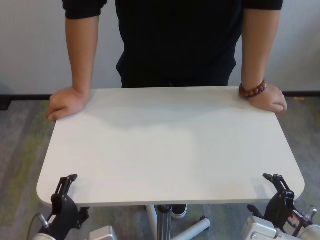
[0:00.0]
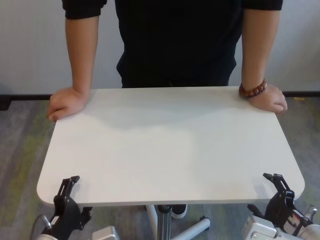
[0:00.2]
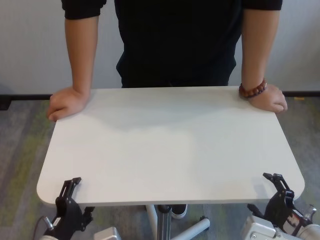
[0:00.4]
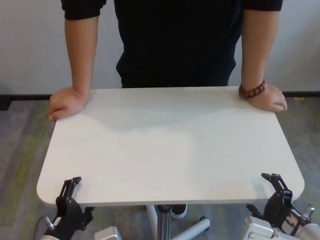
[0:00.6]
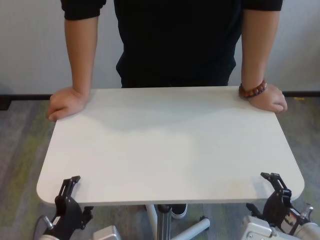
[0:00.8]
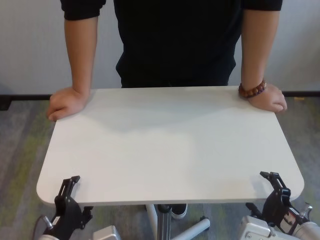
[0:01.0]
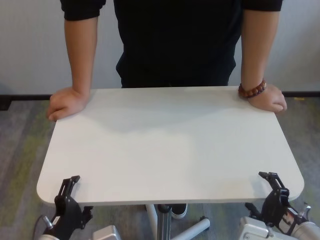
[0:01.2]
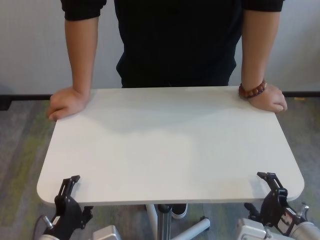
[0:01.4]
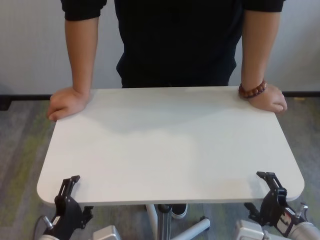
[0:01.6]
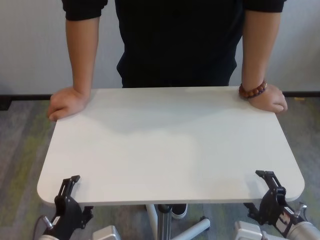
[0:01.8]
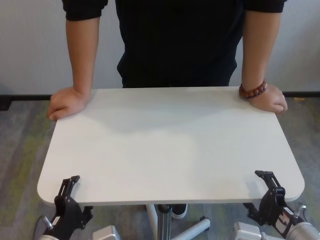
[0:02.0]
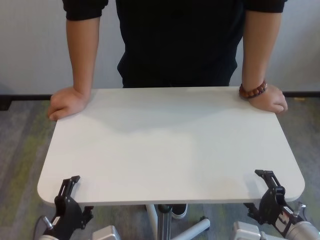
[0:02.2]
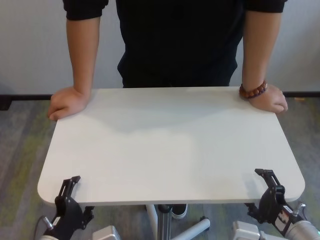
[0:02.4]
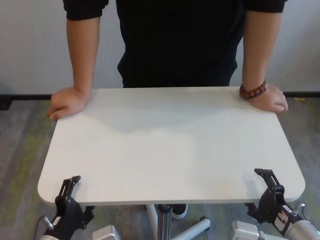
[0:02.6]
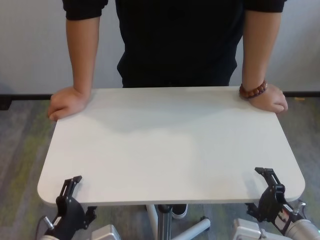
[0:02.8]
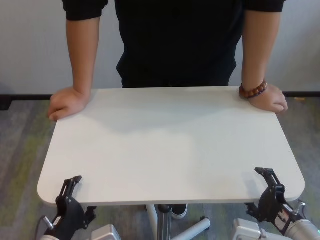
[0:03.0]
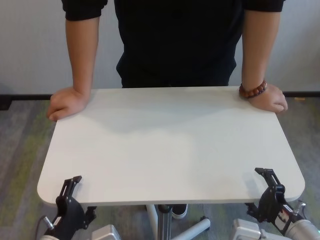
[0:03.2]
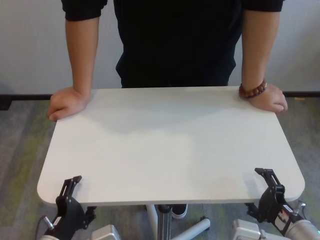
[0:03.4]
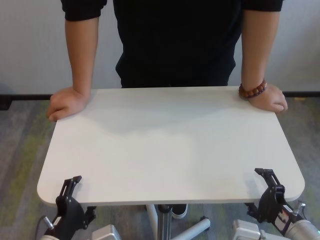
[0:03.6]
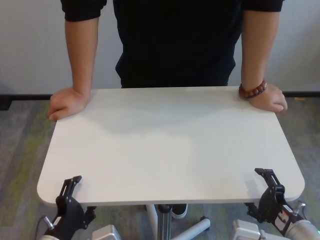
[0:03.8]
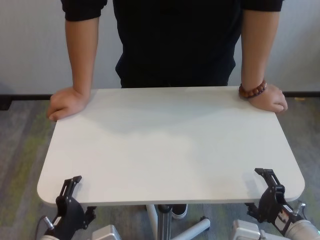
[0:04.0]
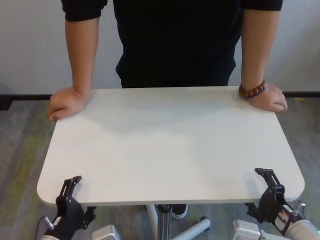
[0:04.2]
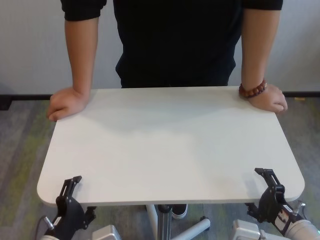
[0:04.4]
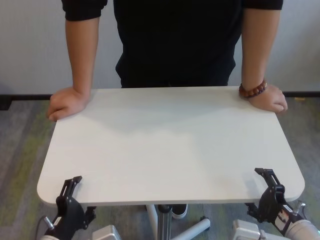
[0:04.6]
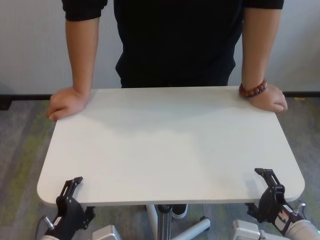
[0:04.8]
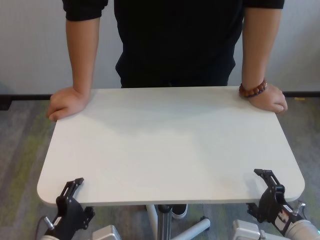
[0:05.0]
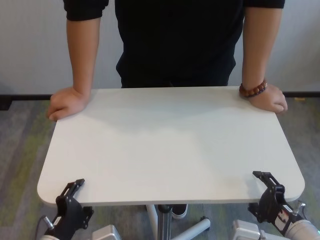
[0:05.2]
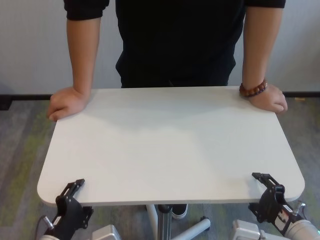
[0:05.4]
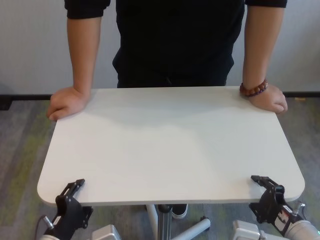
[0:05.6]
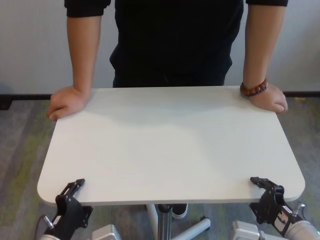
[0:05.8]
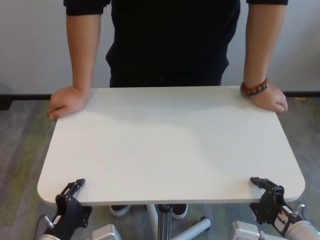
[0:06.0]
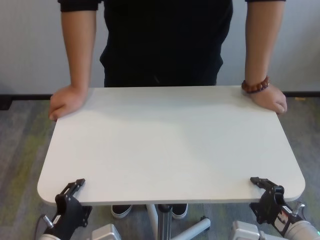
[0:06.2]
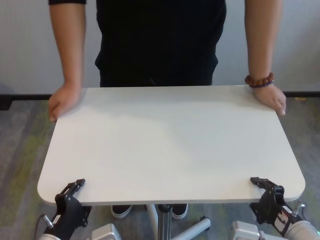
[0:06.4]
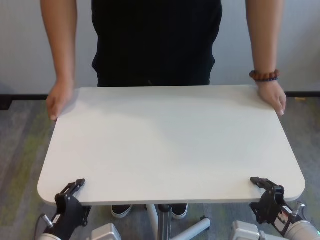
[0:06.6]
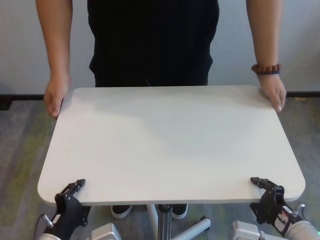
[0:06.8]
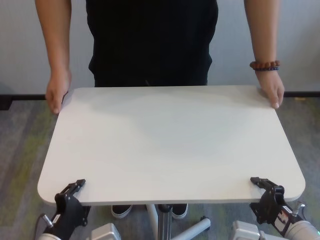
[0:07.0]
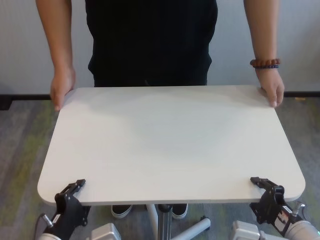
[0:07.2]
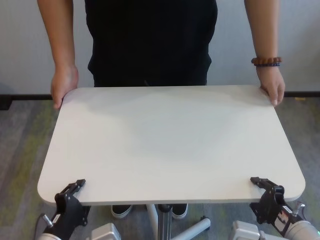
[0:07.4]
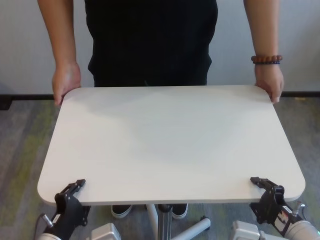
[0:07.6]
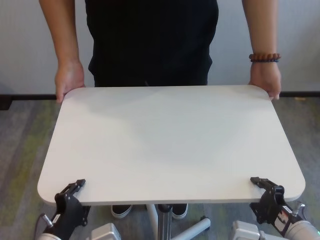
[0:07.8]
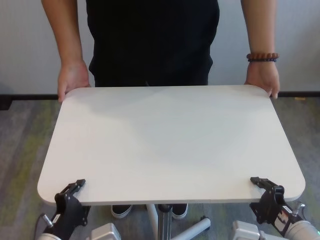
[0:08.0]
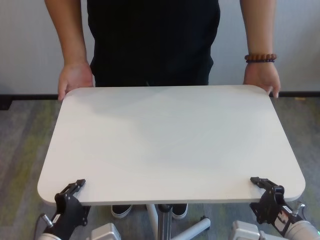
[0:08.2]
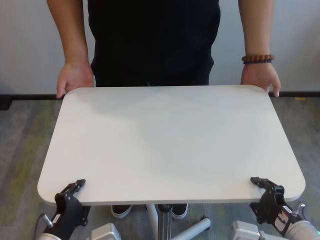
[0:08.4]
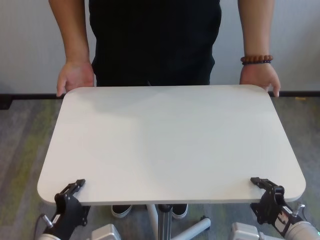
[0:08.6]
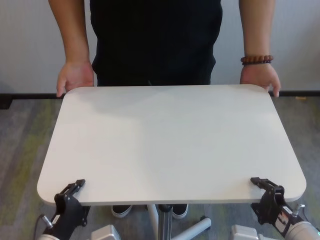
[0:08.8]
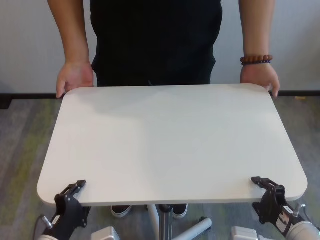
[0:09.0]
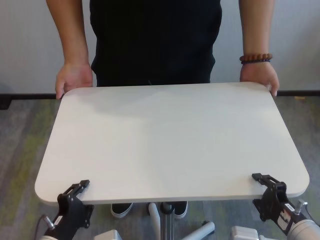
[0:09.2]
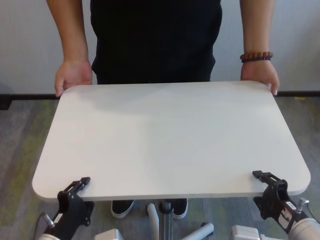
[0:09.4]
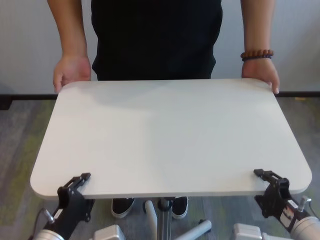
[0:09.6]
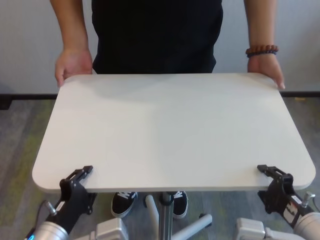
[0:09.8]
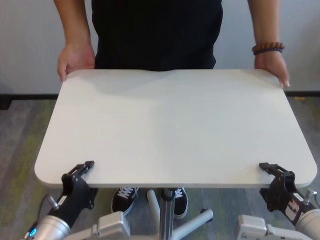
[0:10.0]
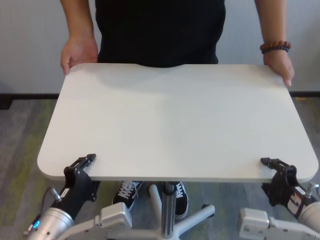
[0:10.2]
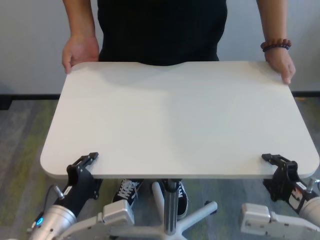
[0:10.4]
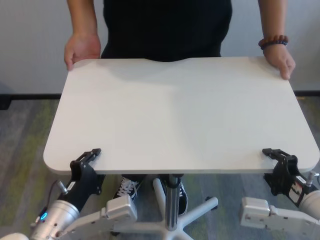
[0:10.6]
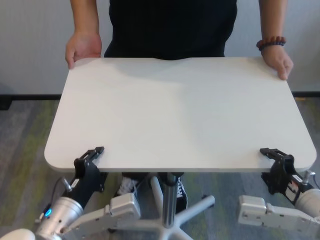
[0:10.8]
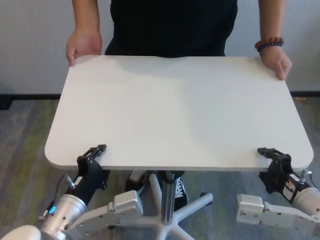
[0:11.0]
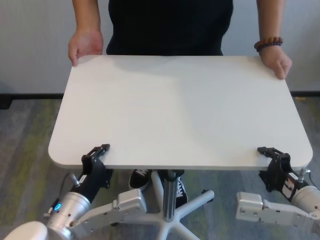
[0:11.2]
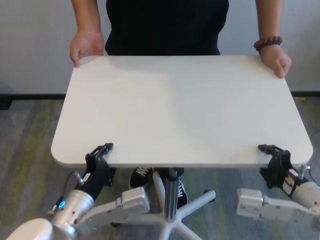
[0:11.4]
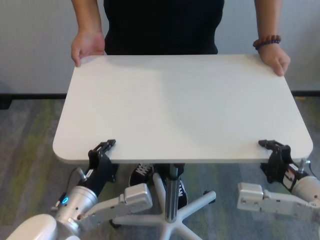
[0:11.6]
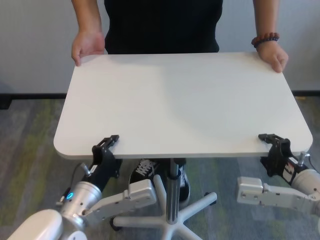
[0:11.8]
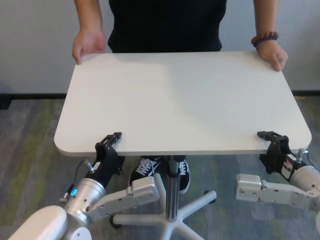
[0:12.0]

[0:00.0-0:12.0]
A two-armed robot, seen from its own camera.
Task of the whole recording: human machine collaborative table moving.
Step, 0:00.0 to 0:07.6: Grasp the table with both grippers.

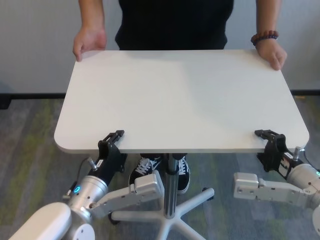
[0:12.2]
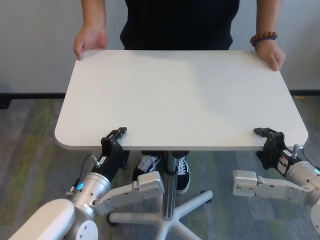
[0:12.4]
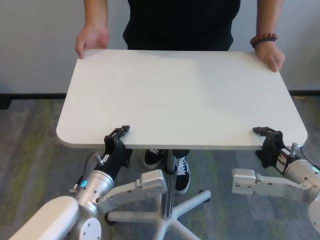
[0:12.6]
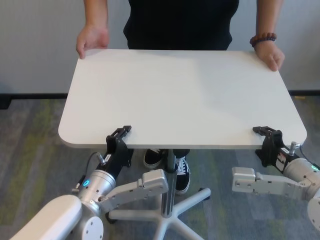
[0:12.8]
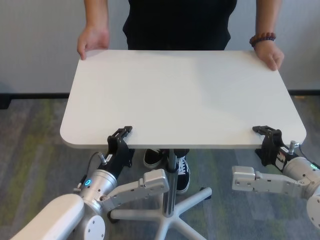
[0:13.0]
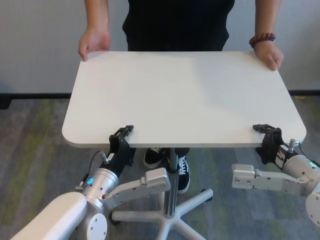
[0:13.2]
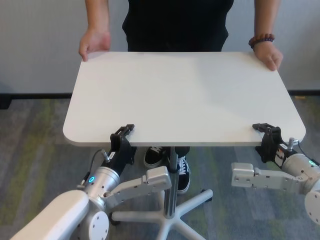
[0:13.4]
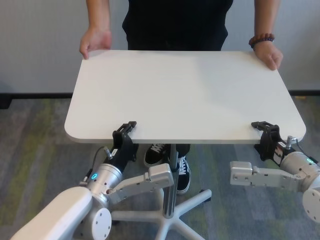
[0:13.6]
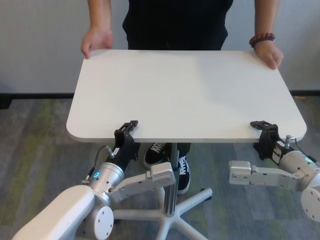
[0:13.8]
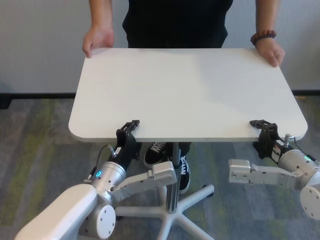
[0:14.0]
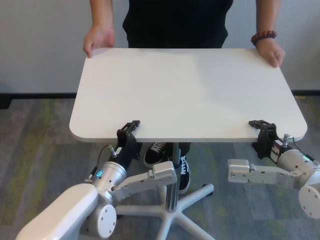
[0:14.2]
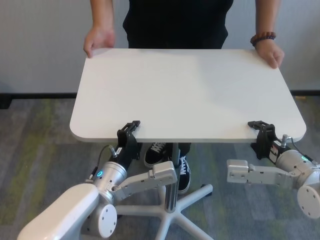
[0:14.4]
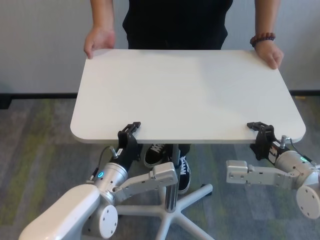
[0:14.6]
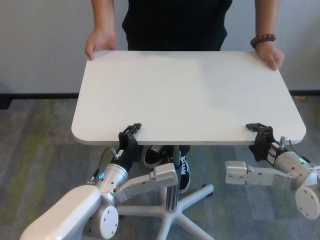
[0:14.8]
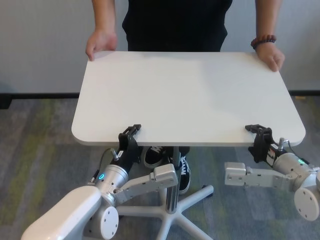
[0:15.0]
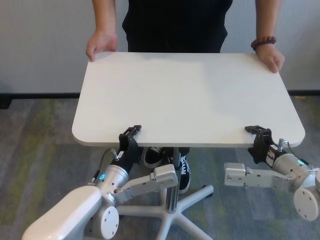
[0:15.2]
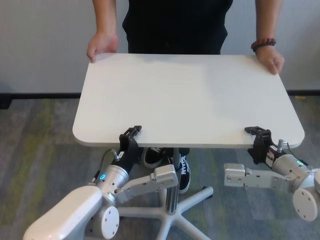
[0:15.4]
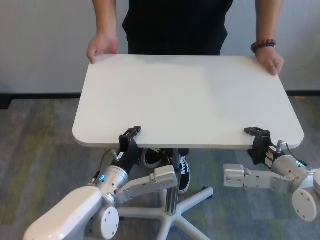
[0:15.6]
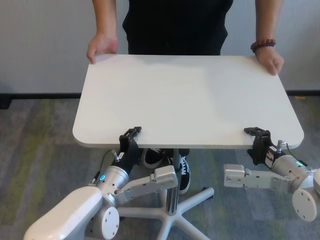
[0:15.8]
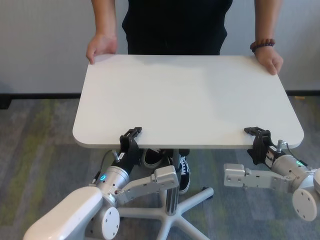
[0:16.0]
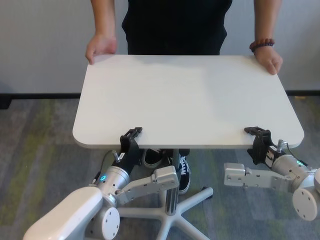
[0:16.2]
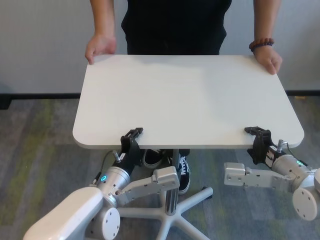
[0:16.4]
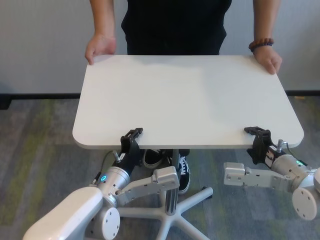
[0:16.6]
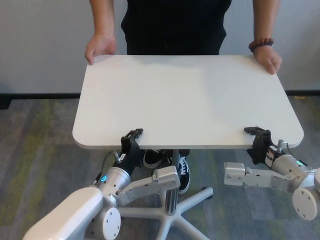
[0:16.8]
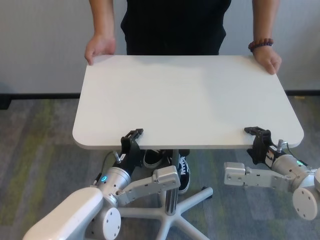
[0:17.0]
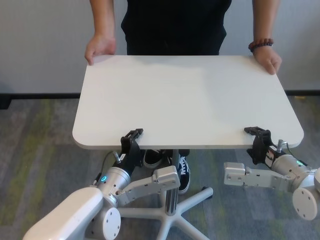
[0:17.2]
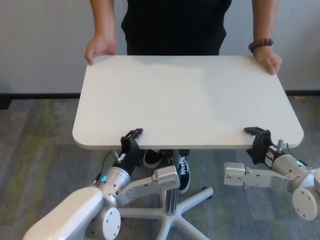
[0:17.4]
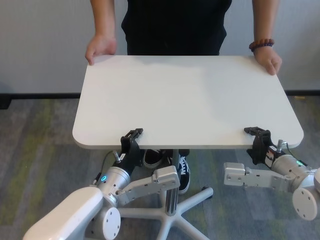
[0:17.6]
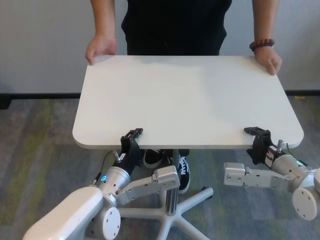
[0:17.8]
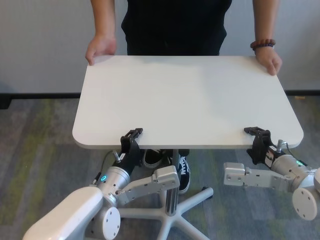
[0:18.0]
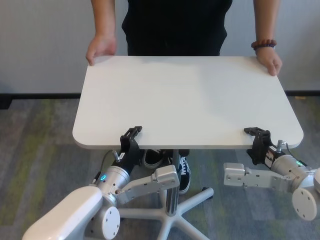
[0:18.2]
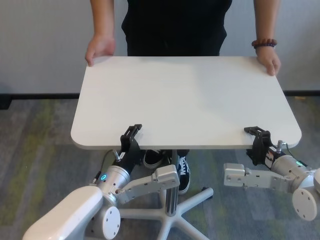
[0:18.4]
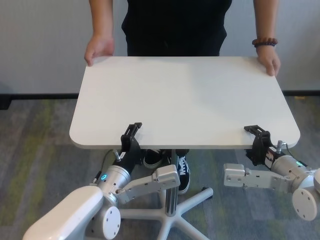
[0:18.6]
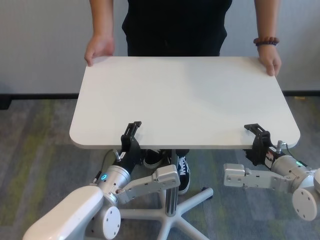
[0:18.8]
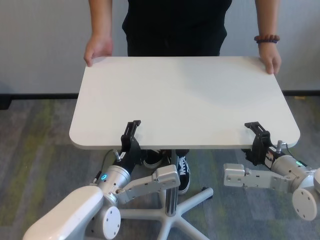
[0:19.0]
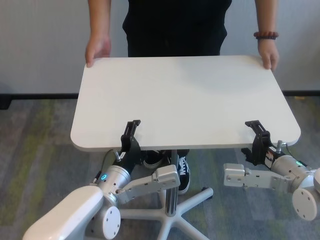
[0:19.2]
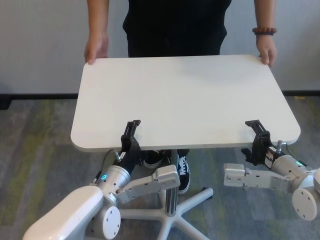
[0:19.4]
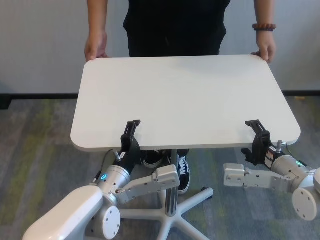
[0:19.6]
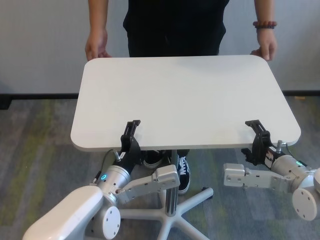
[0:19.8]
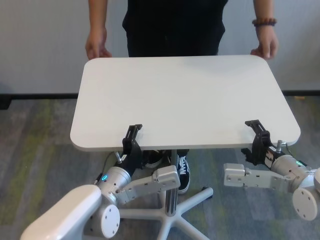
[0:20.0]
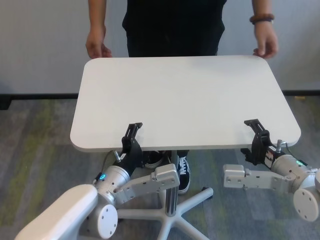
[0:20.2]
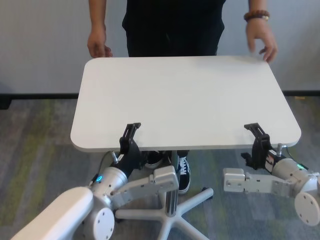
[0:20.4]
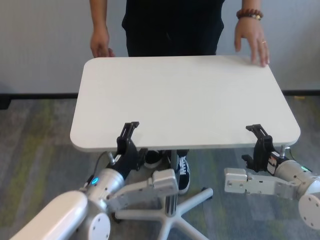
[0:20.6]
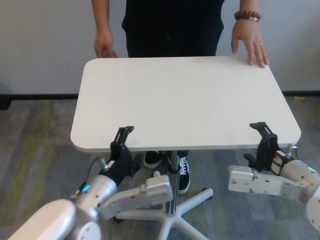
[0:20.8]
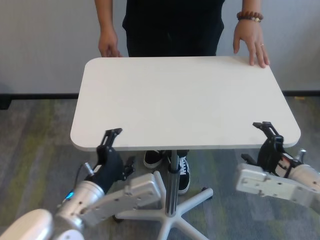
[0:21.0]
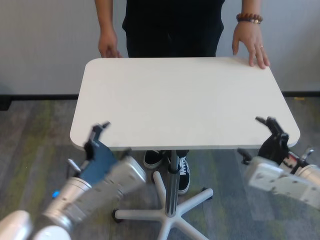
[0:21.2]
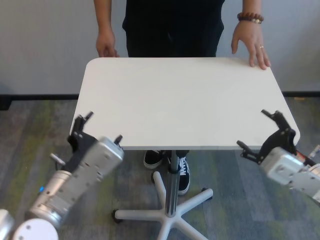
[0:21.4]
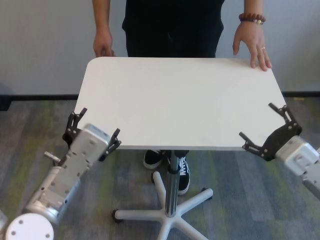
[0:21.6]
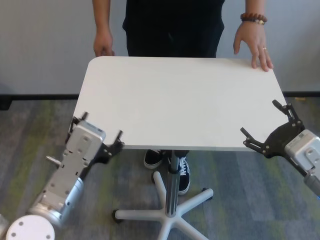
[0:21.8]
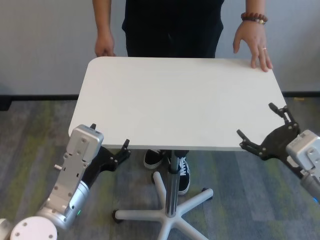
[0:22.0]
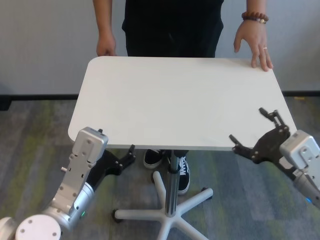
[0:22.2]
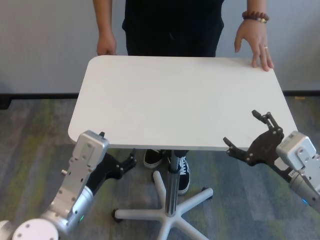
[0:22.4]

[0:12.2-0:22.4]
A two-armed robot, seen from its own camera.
Task of the whole recording: human machine collaborative table moving.
Step, 0:12.2 to 0:20.4: Move the table forward with both grippers.
